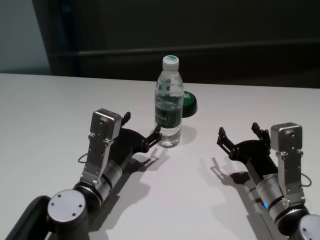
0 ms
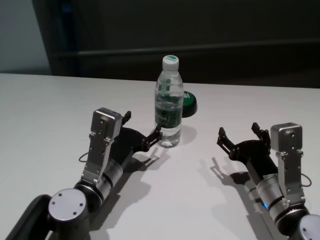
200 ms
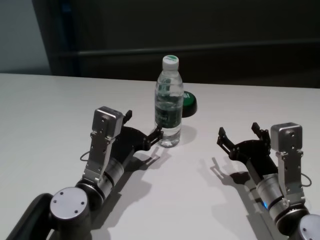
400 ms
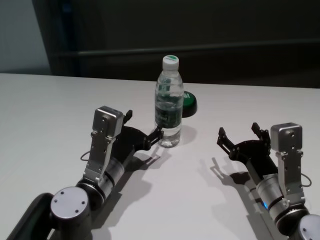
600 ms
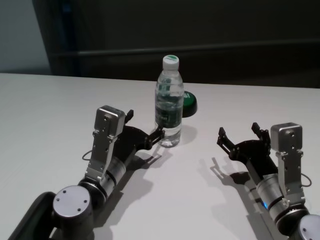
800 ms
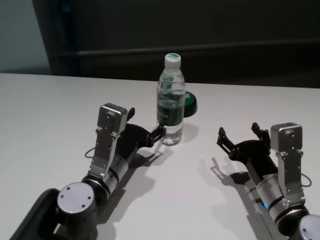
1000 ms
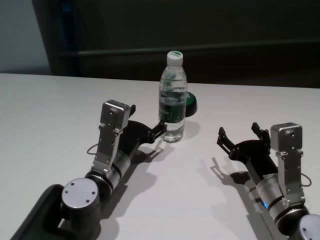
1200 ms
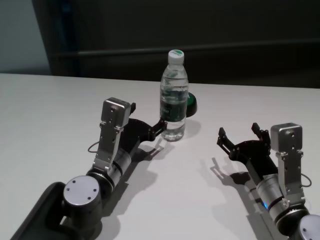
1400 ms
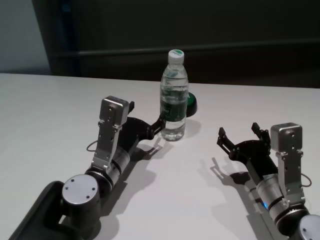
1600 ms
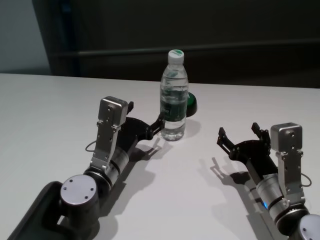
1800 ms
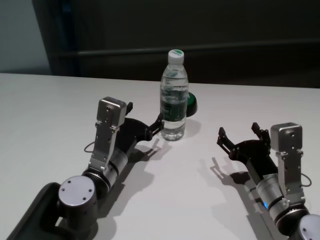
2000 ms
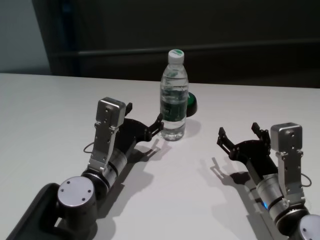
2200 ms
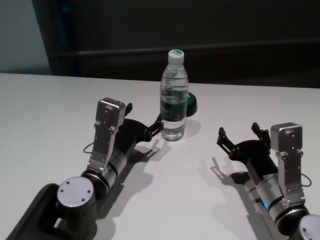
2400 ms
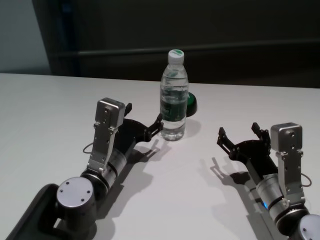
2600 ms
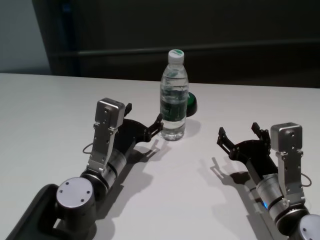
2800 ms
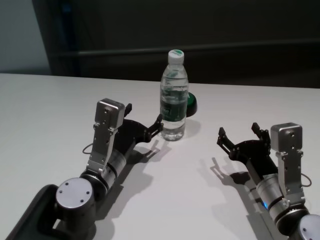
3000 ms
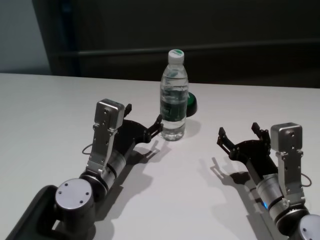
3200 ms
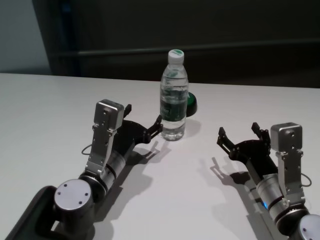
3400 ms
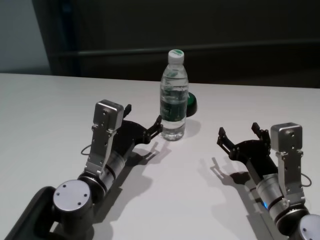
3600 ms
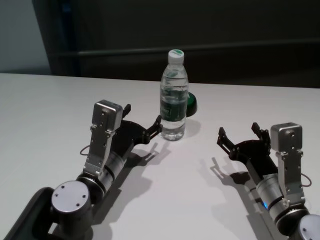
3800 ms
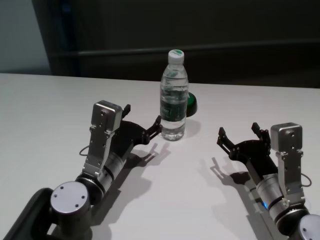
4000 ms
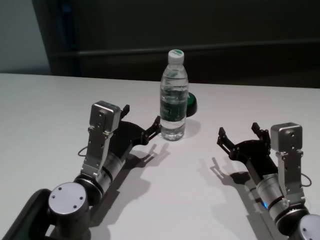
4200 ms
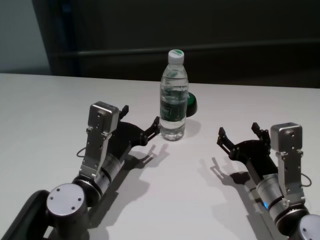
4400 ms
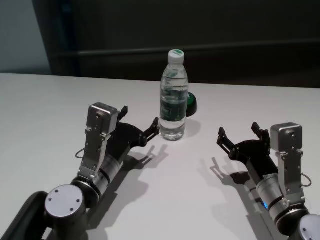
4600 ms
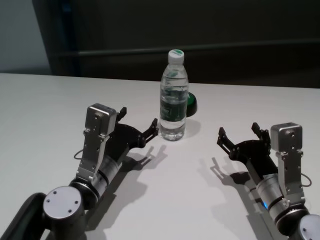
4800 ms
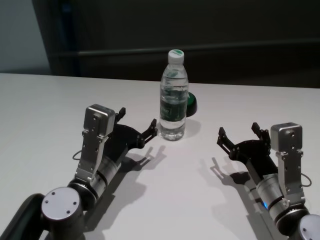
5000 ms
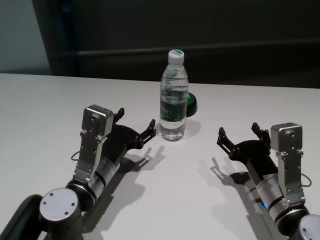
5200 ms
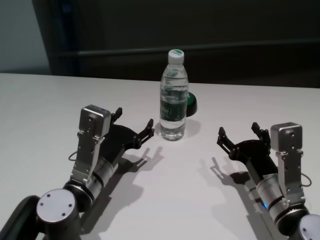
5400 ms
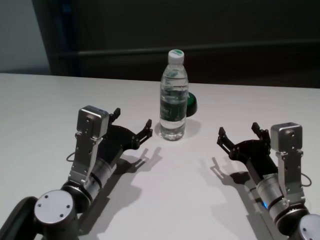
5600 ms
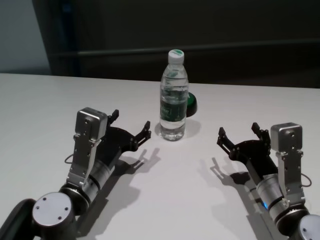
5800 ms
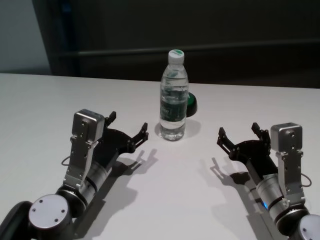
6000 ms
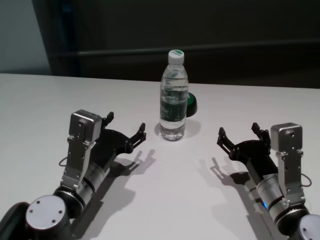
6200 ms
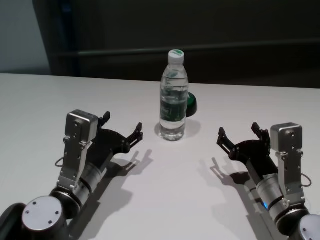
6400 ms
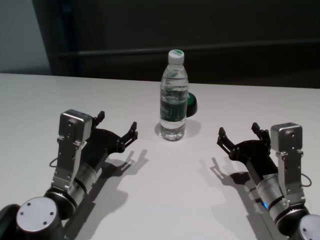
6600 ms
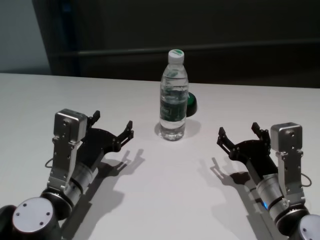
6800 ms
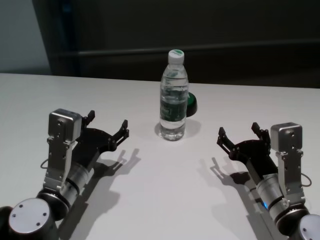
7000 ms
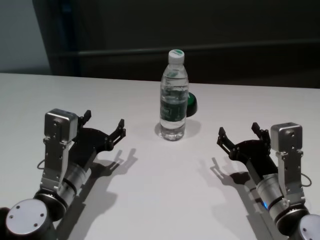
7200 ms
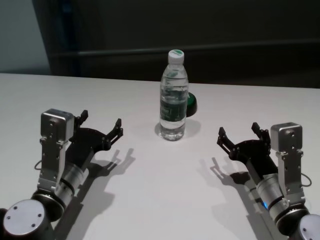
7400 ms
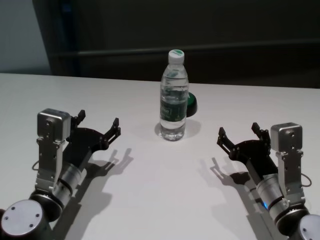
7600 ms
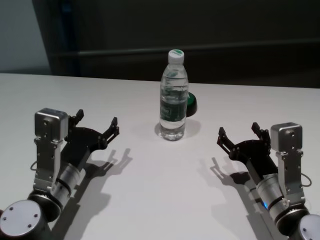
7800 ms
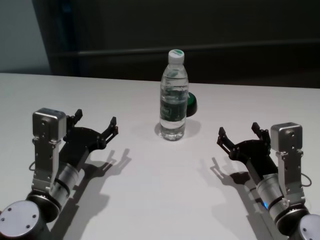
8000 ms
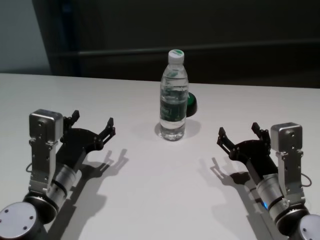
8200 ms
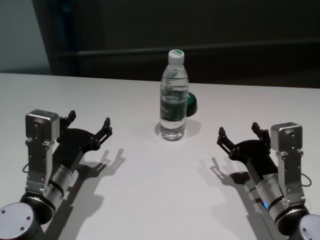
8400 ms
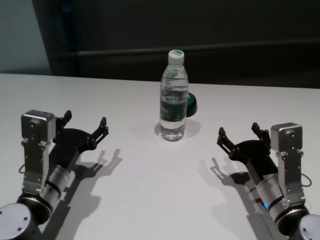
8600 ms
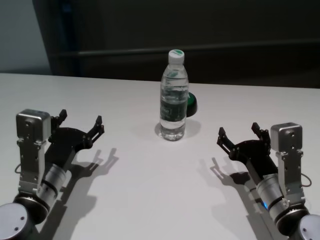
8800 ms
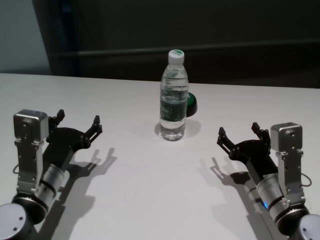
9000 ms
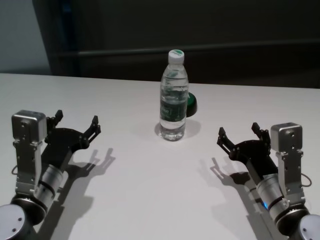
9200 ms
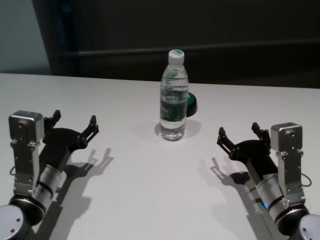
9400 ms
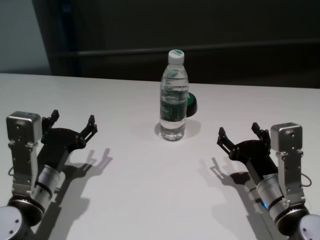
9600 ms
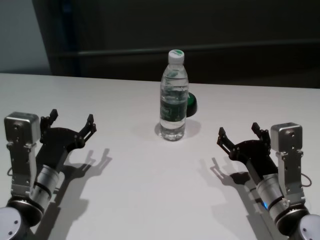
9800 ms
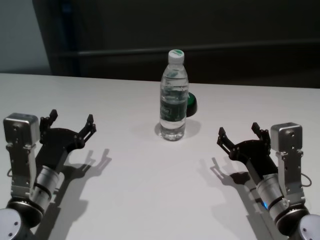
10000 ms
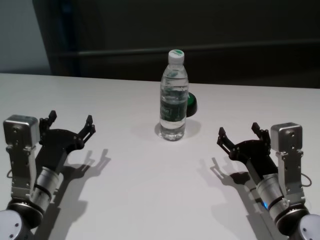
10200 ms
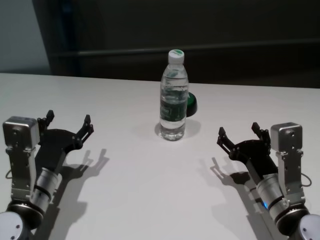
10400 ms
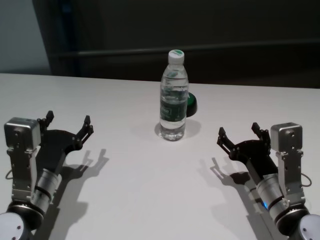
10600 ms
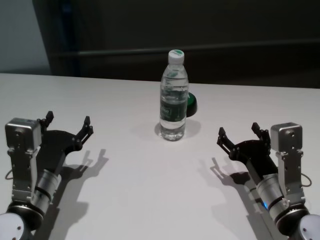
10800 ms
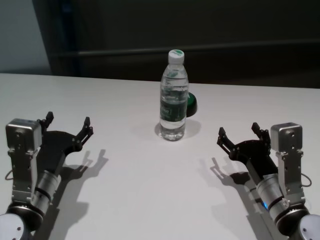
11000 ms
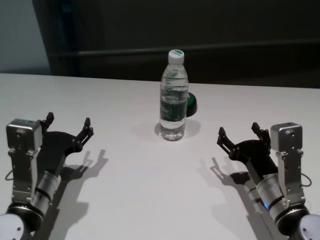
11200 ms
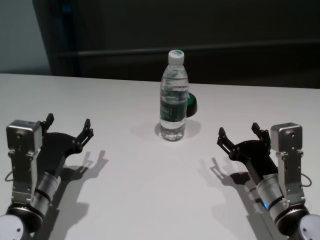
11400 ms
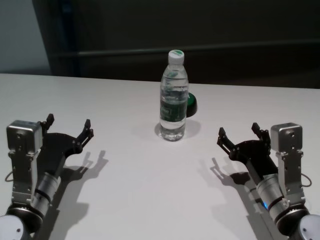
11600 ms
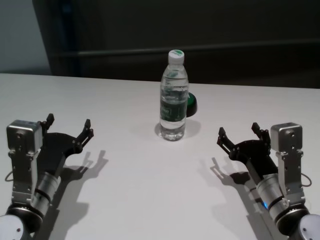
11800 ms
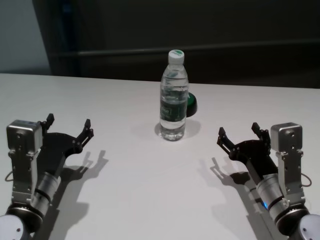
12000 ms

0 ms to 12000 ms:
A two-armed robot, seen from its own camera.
Task of the whole recording: return to a safe position after touching an obstacle with your arm on the white table.
Step, 0 ms to 4200 ms: Touch the bottle with left gripper.

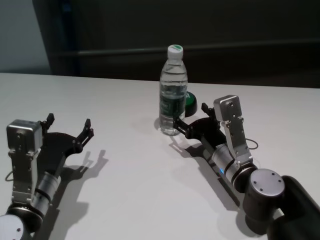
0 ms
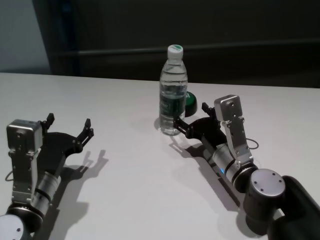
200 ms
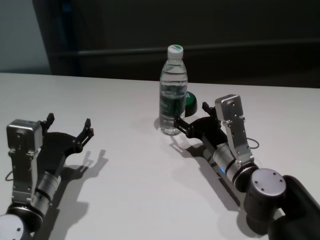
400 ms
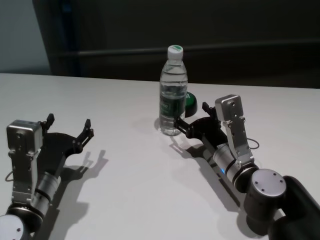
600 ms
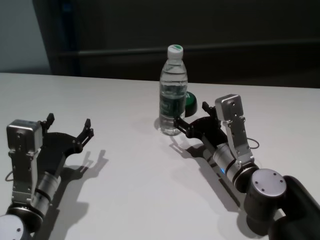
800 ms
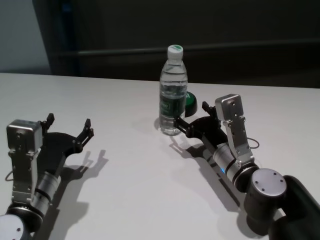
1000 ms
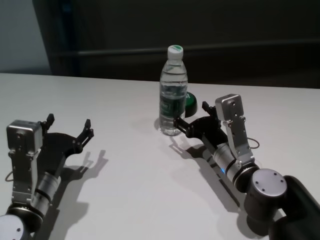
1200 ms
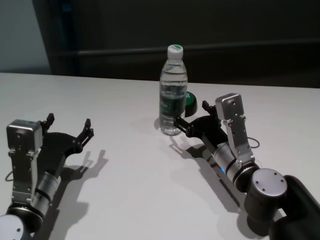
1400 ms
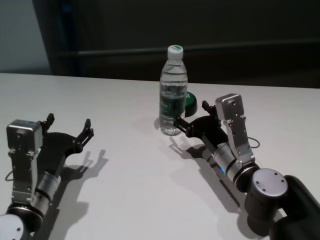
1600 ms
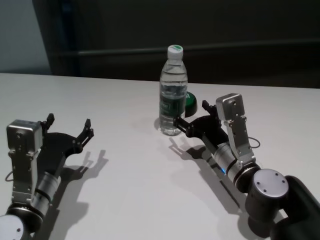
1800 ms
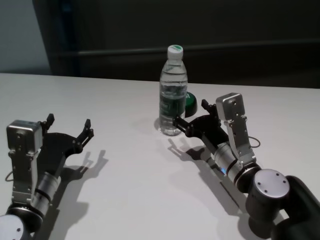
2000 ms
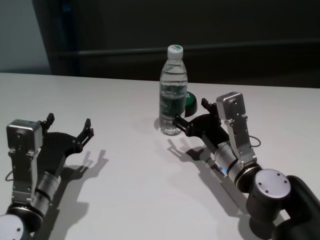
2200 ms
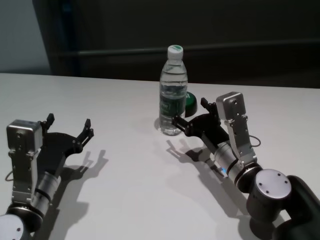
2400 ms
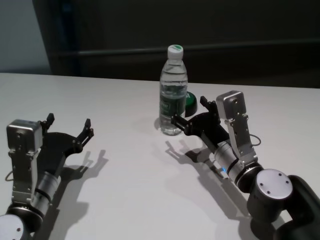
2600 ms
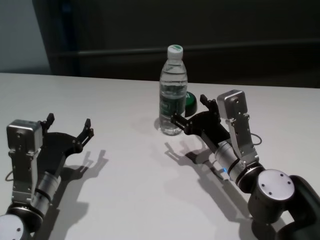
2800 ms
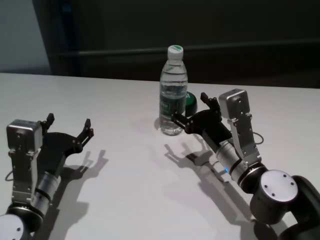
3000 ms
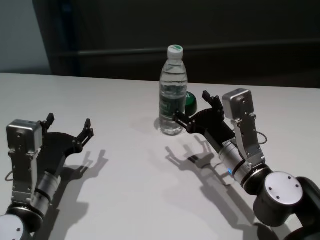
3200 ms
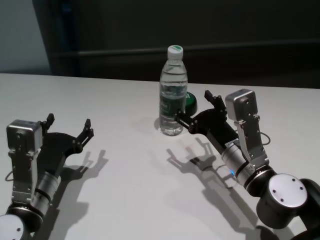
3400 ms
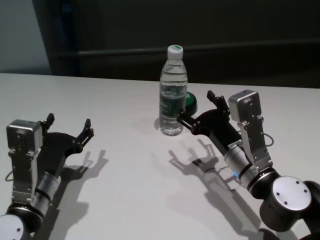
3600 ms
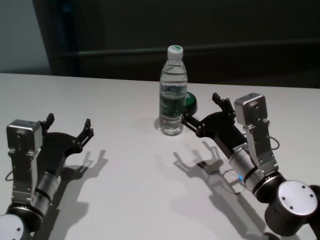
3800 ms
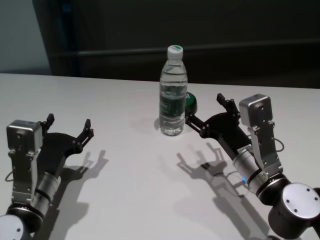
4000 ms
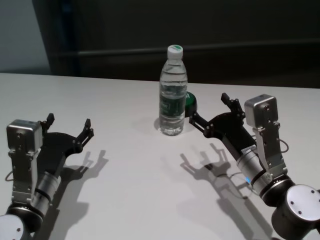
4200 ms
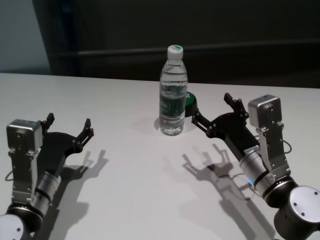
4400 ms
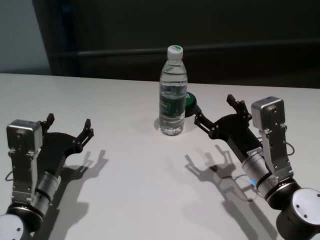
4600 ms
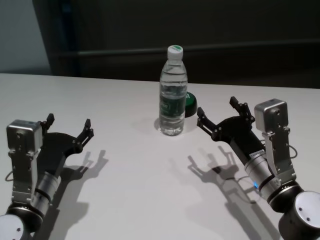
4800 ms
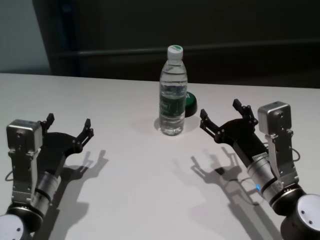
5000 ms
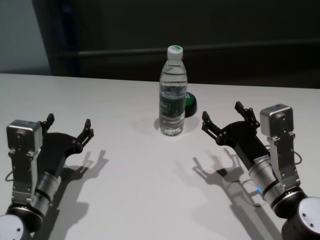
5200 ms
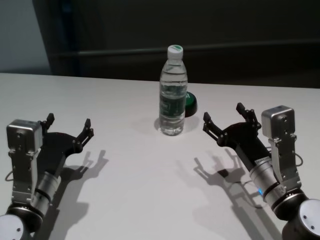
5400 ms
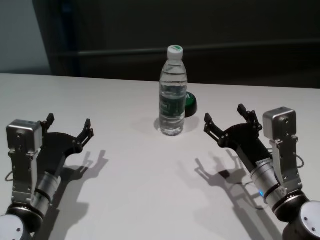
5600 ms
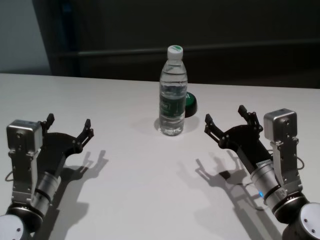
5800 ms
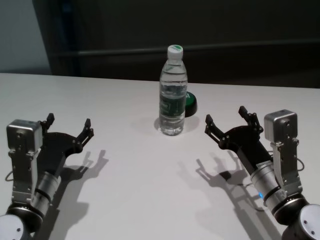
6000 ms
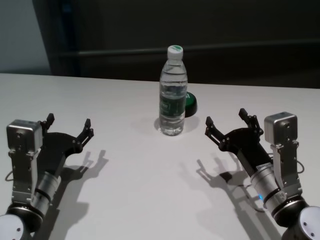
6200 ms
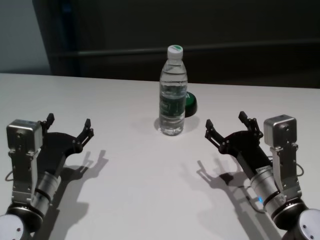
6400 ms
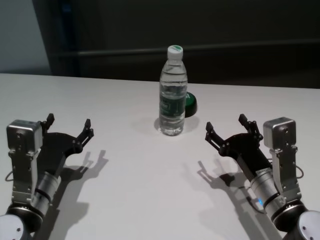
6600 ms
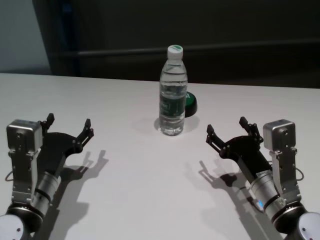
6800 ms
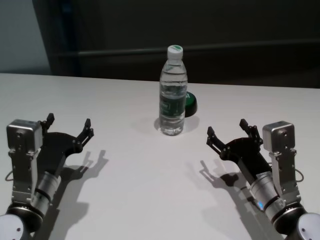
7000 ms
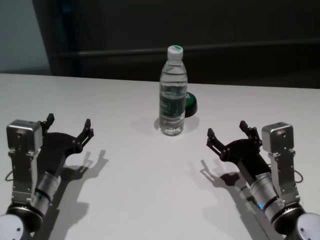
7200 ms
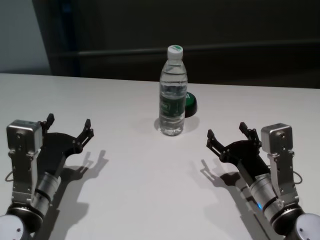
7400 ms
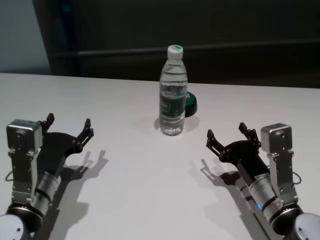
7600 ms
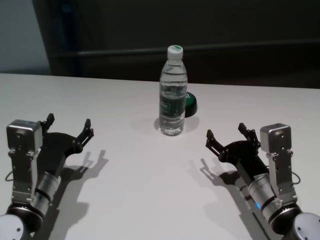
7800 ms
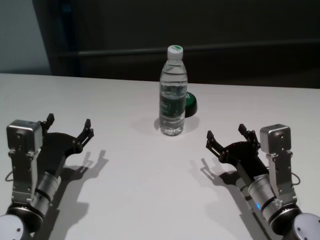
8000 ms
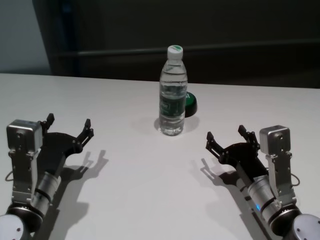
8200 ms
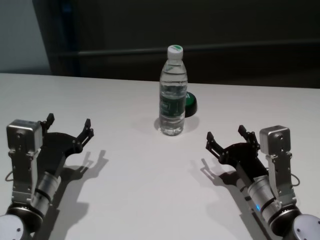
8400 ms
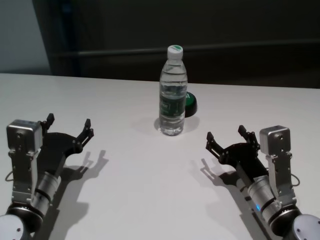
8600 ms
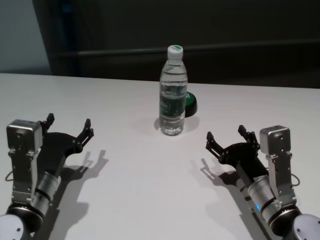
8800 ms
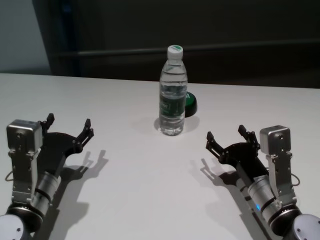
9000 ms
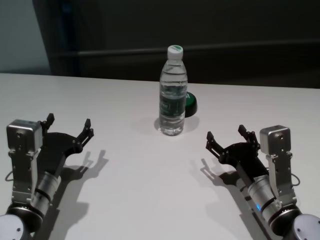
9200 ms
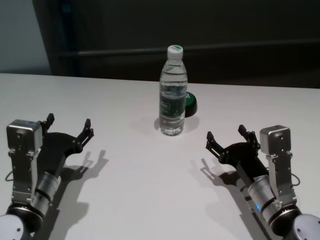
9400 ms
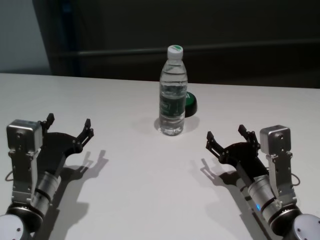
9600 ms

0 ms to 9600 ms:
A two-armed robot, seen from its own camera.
Task of the whole recording: return to a safe position after touching an obstacle with your arm on the white table.
Step, 0 ms to 2600 ms: Touch the bottle with right gripper.
